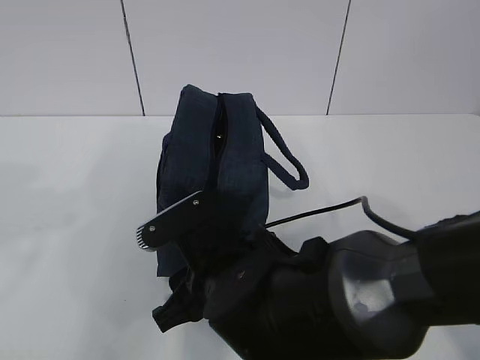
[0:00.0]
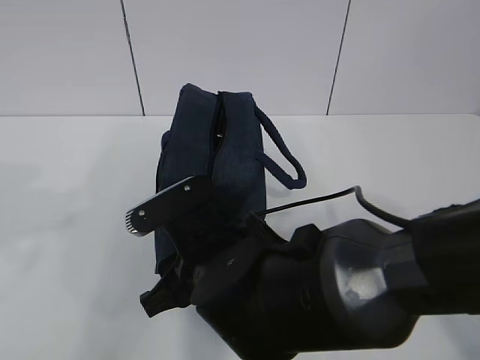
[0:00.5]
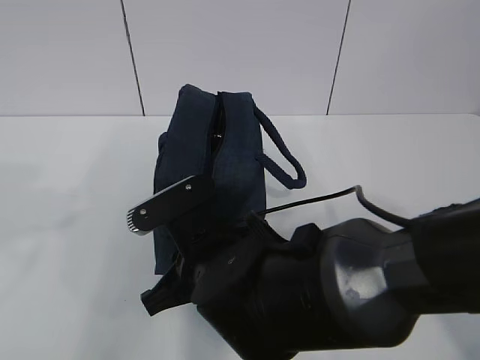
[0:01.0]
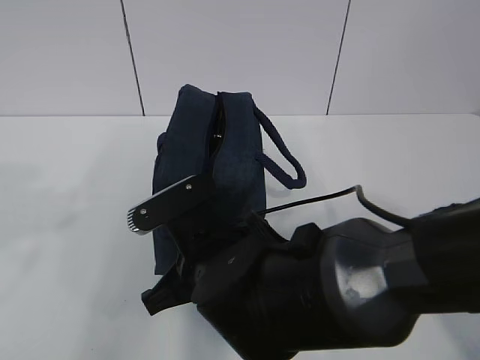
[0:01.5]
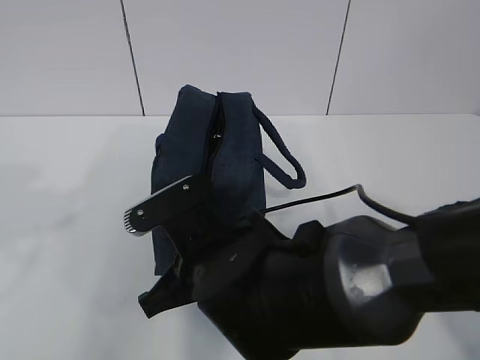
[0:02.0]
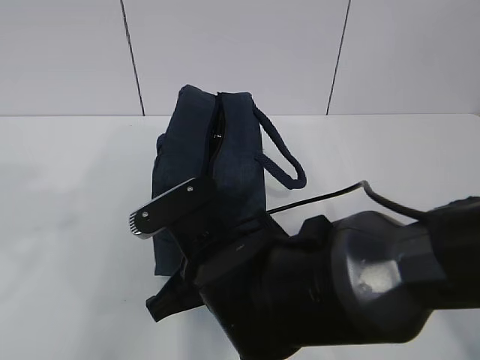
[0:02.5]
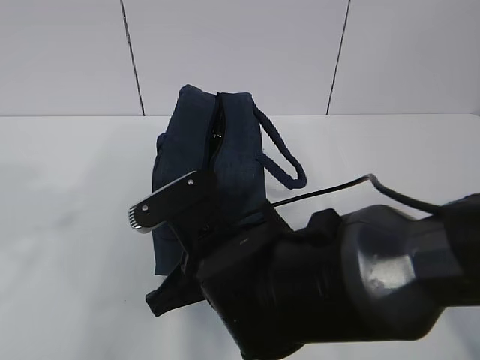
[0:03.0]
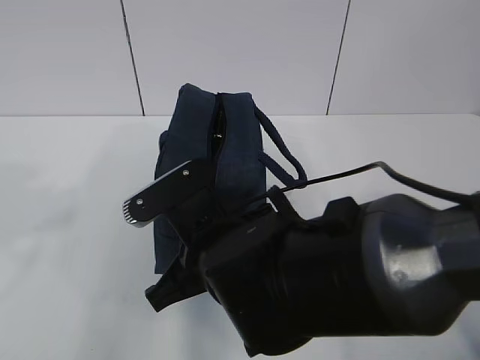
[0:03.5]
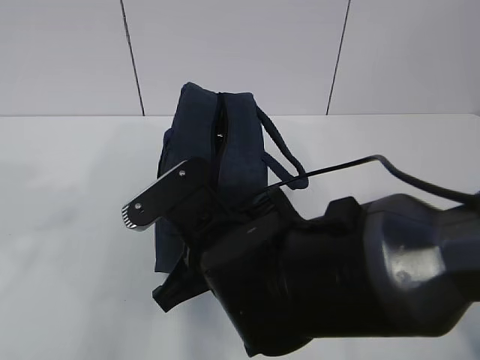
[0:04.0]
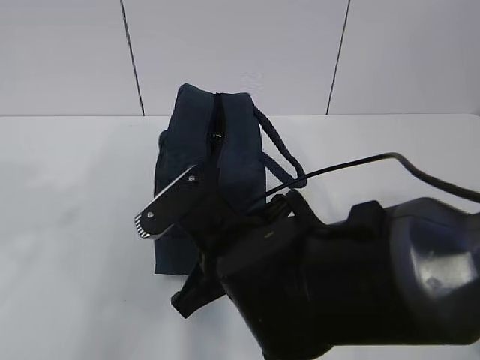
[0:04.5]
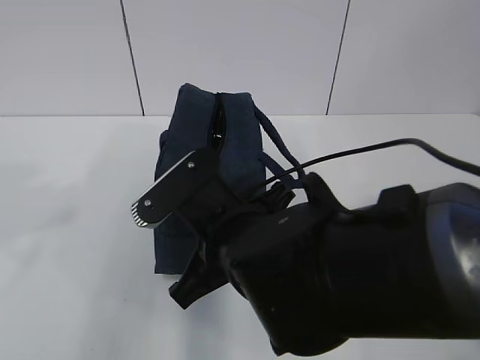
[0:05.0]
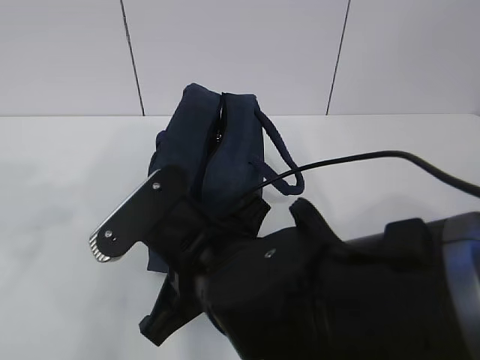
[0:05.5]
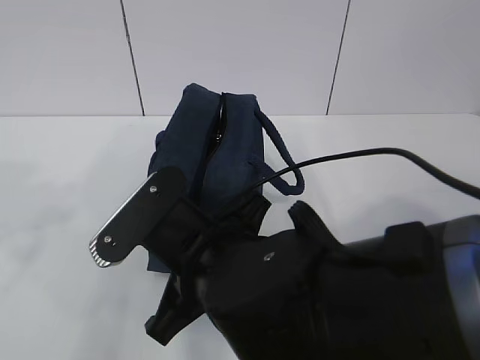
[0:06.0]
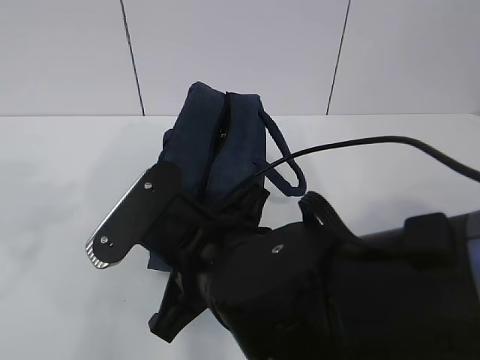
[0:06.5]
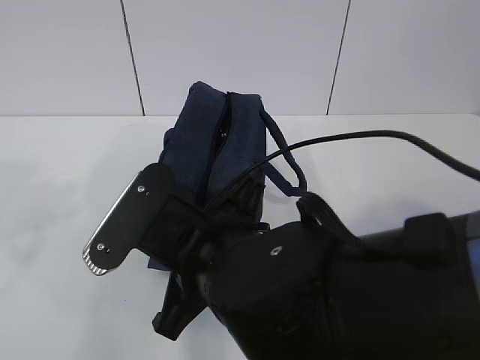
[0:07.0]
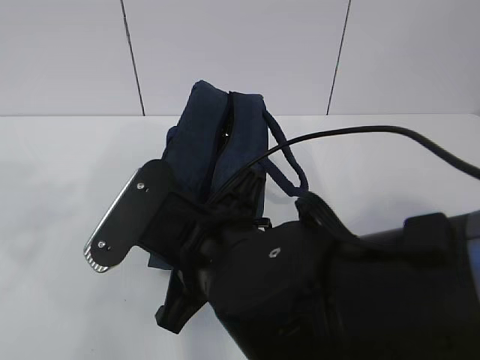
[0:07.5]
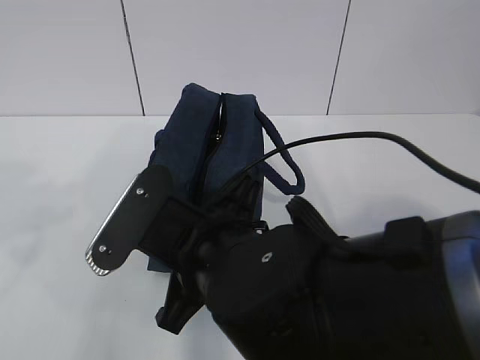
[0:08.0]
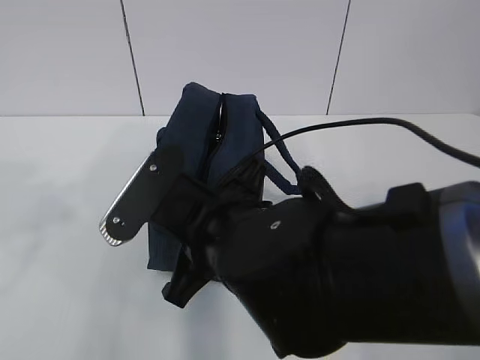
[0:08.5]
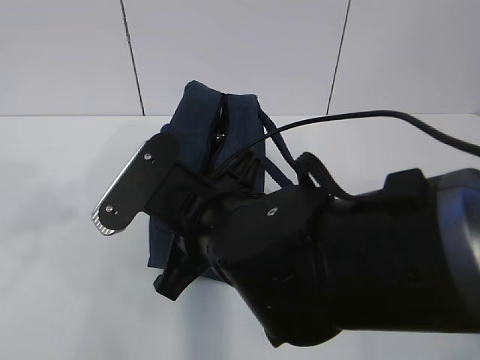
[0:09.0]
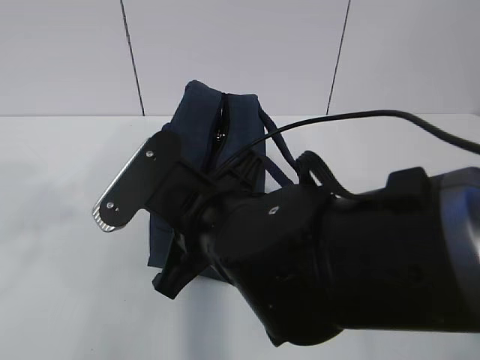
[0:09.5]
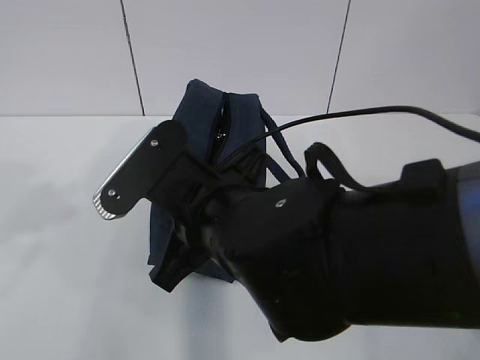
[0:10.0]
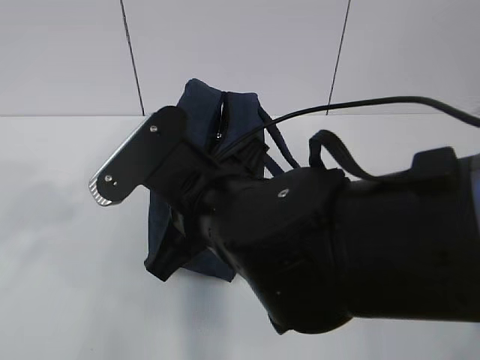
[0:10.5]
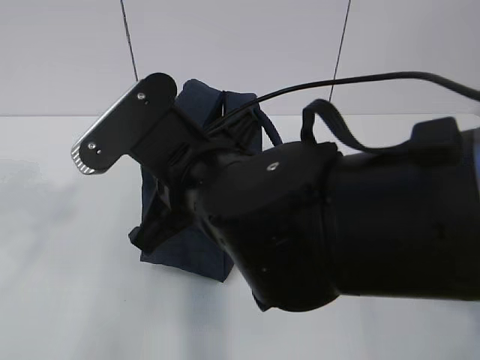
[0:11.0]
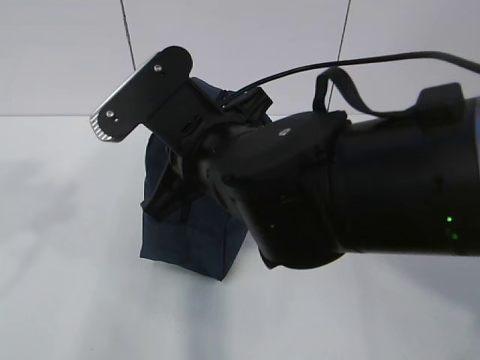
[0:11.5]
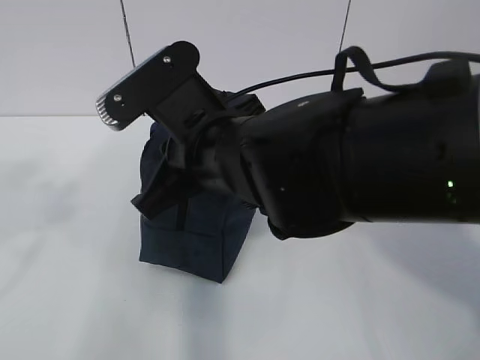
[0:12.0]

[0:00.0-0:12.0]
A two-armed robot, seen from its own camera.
0:00.0 to 0:02.0: The right gripper closes up.
0:02.0 to 0:04.0: The grippers make only small movements.
0:04.0 to 0:06.0: There are only small adjustments of the grippers.
0:06.0 to 0:08.0: There are only small adjustments of the grippers.
0:10.0 to 0:12.0: The right gripper moves some 5 cm.

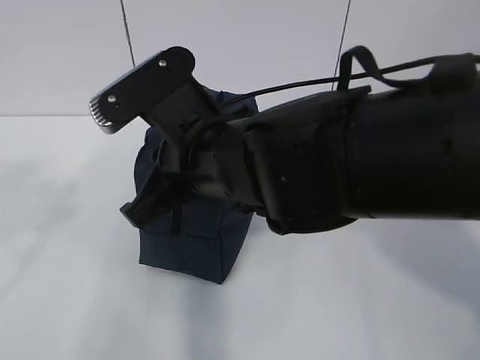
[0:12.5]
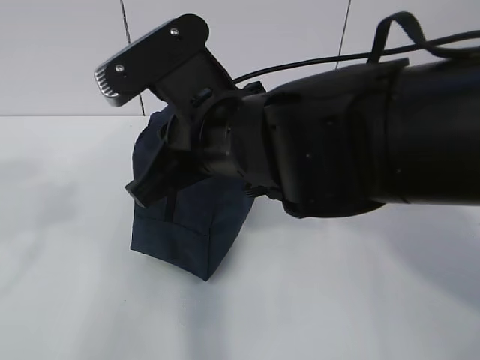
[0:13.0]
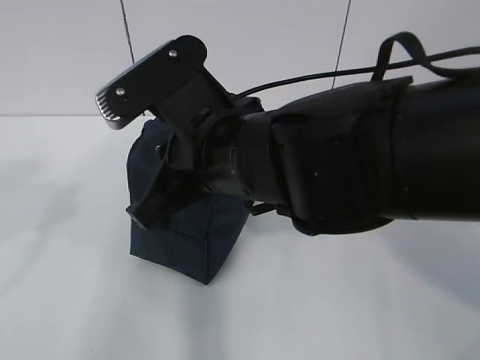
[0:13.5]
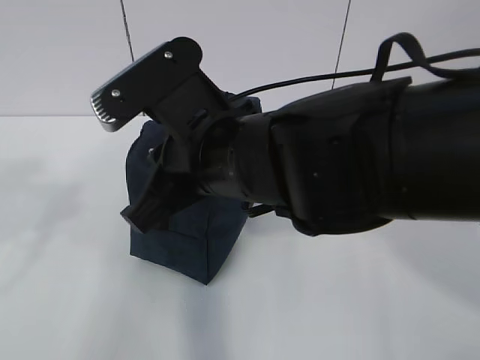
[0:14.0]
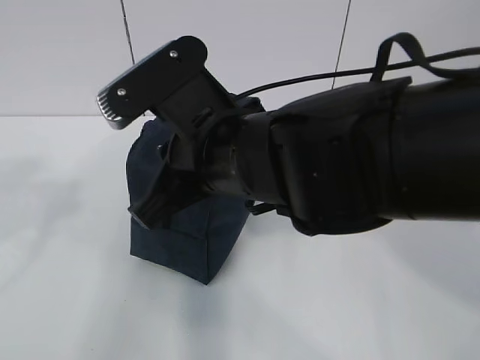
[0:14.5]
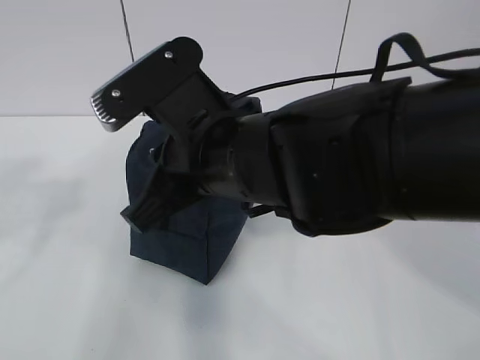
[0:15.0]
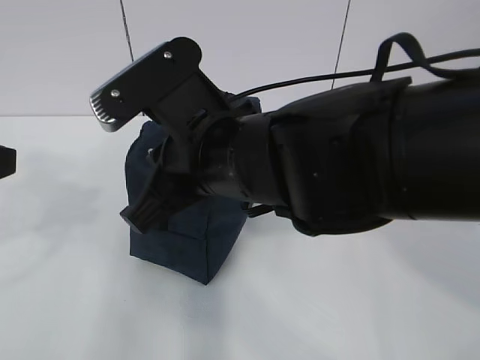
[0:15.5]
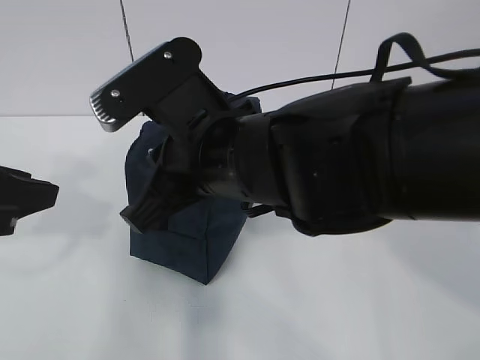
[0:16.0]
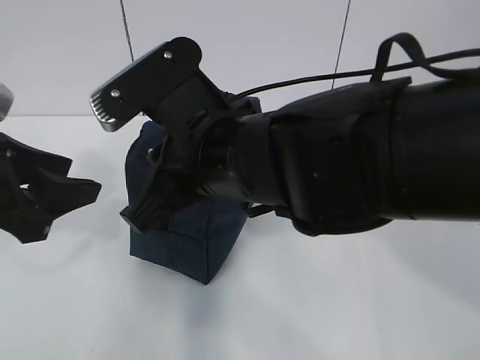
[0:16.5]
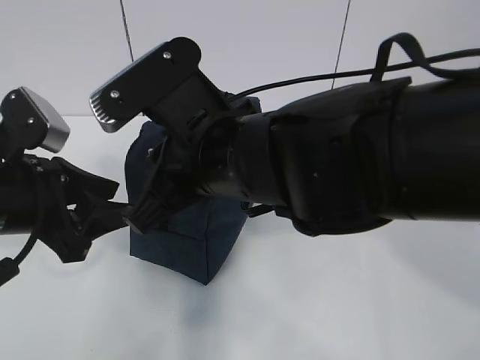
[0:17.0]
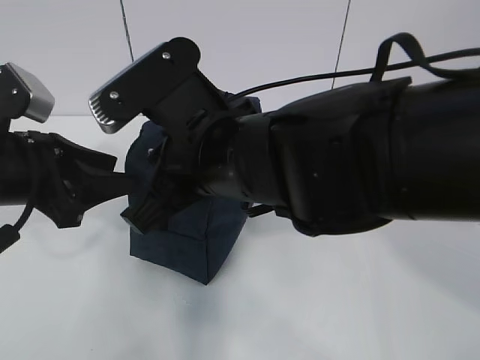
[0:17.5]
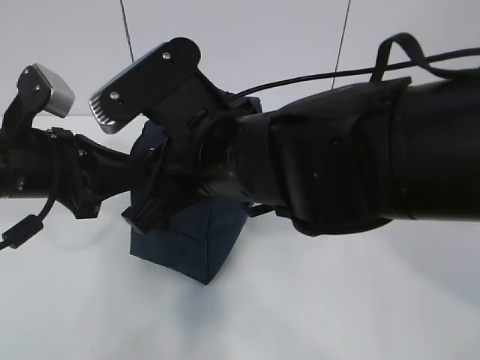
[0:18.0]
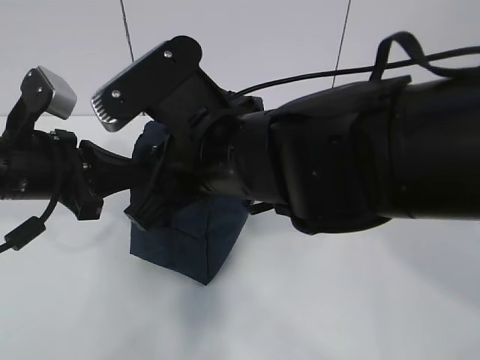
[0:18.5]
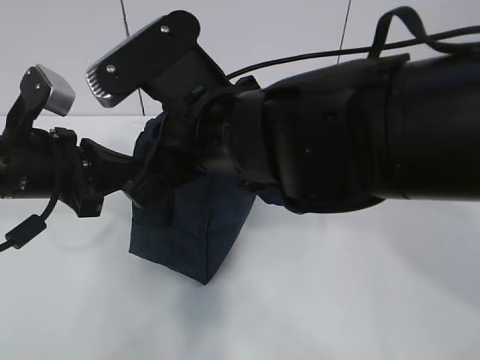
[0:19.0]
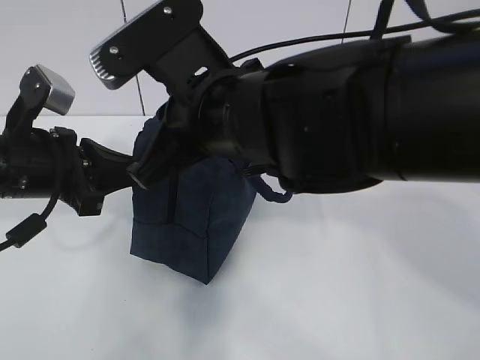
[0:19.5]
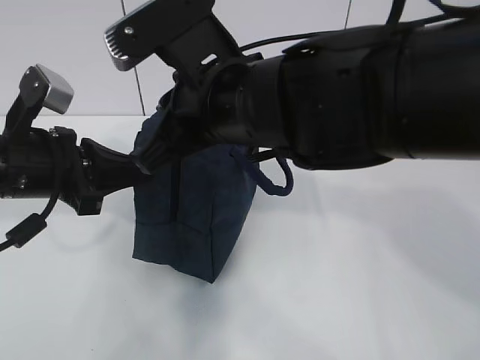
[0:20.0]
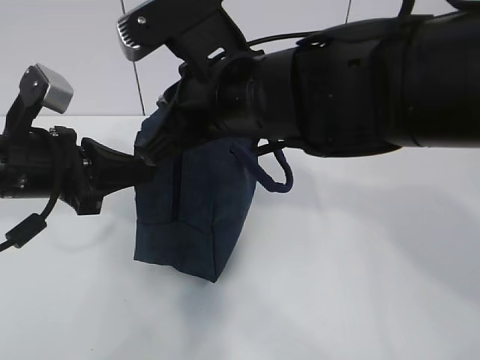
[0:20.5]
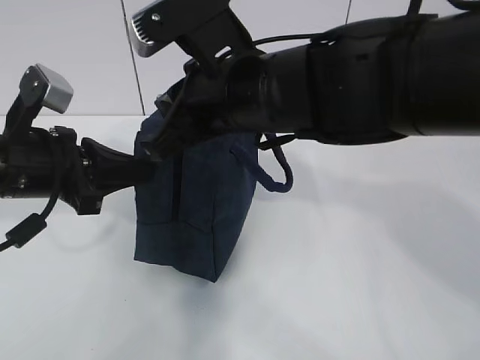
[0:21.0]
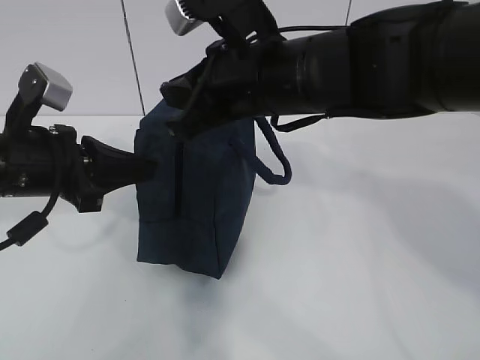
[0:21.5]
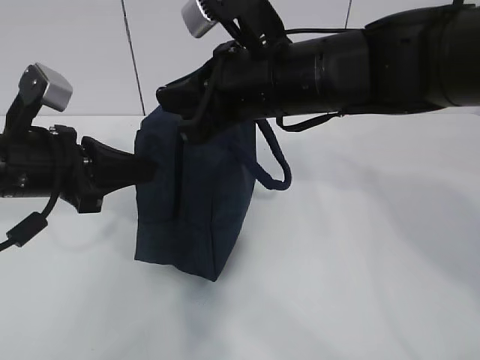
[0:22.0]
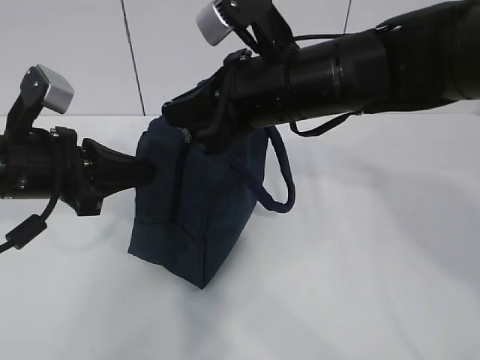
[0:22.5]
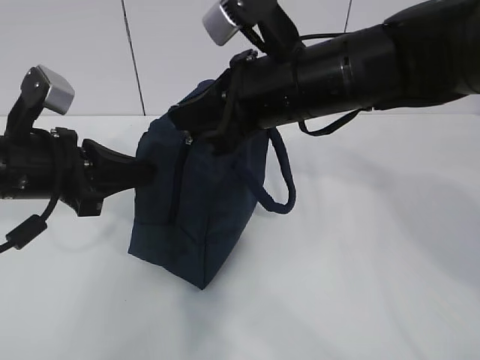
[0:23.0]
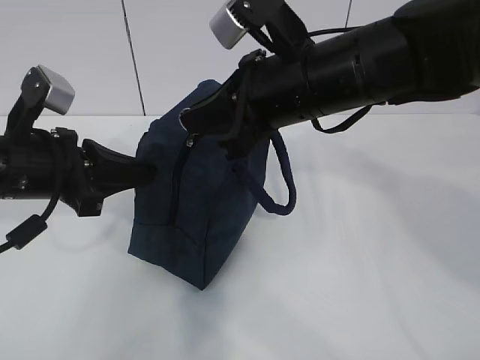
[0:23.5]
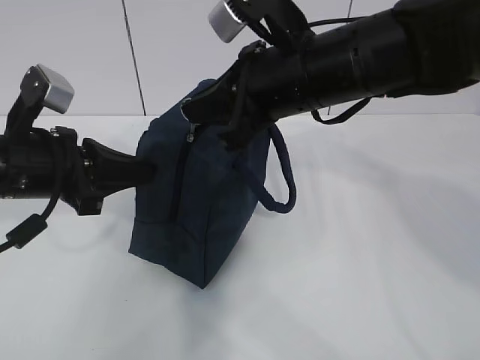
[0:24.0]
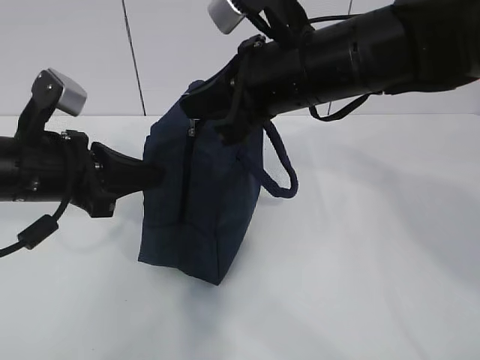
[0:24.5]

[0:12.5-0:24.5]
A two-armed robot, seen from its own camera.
Step, 0:12.5 to 0:20.0: Pull the zipper with your right hand.
0:12.5 to 0:14.5: There are only small adjustments of the grippers.
0:14.5 to 0:16.5: The left gripper shifts roughly 10 cm forward, downward and to the right.
0:16.5 to 0:18.5: The left gripper heads forward, covering about 5 cm, and closes its fingers.
0:20.5 to 0:22.5: The right gripper changes place by about 5 cm.
0:22.5 to 0:24.5: The grippers stay close to where they were, moving slightly.

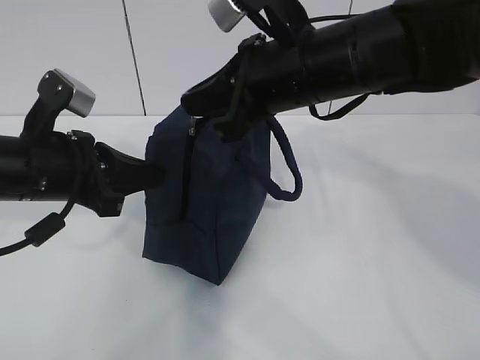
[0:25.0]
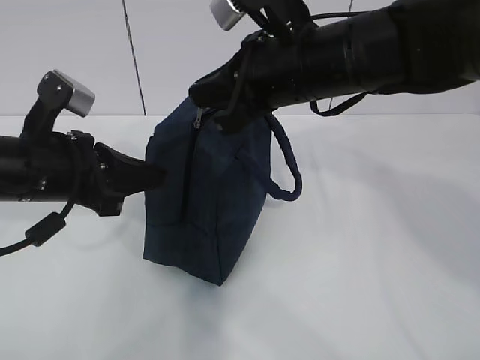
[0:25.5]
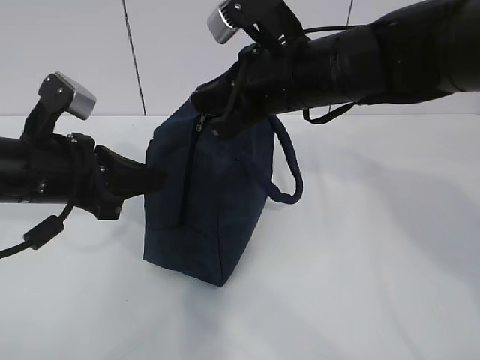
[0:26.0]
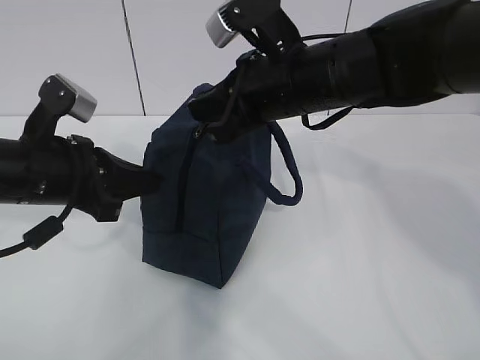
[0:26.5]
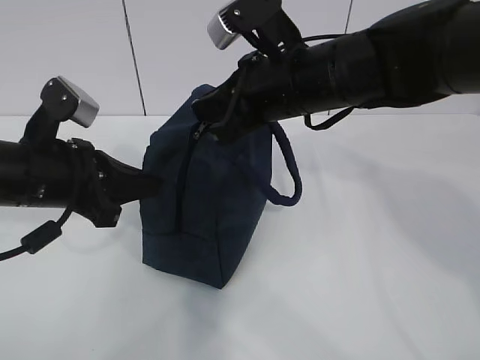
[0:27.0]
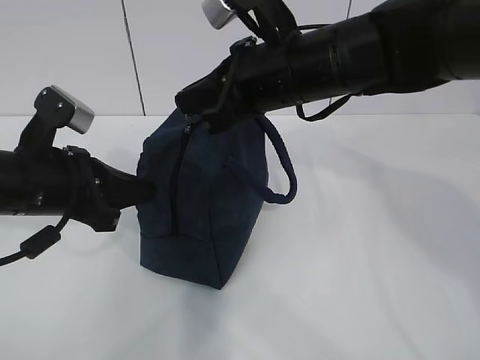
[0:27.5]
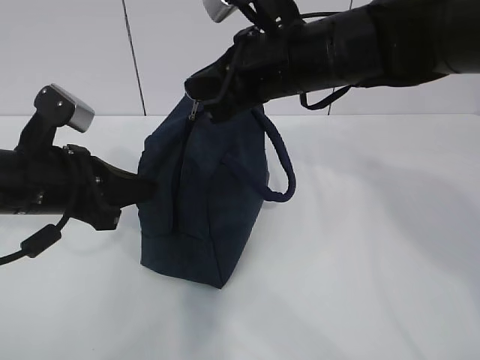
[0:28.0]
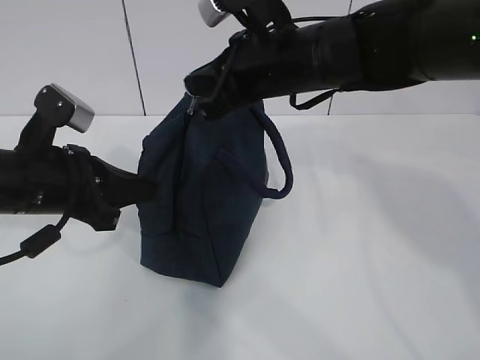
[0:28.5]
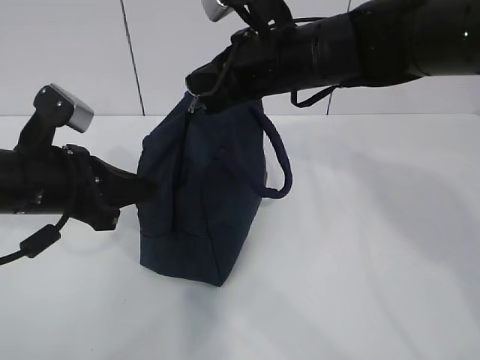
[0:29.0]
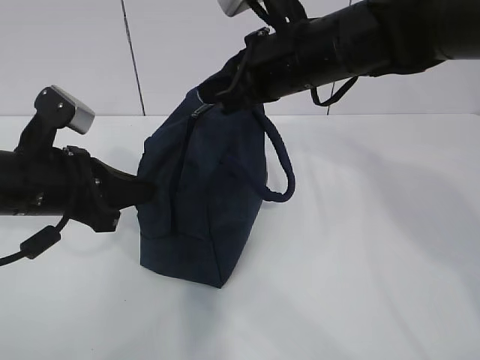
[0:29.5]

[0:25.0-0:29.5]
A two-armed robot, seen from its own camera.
0:25.0 to 0:29.5: There are only small adjustments of the grippers.
